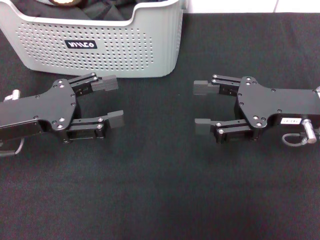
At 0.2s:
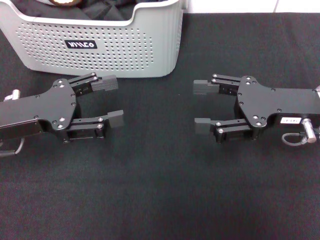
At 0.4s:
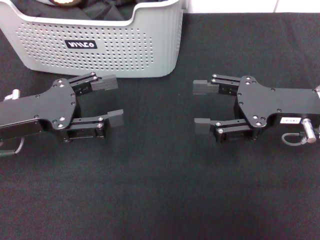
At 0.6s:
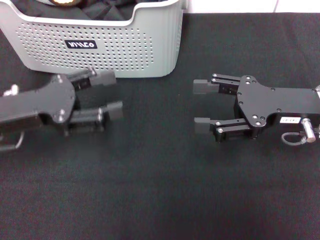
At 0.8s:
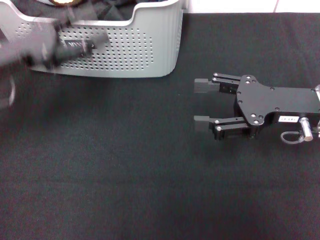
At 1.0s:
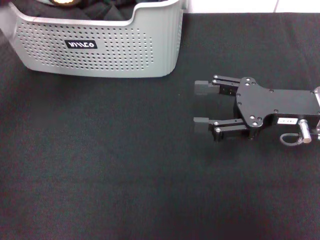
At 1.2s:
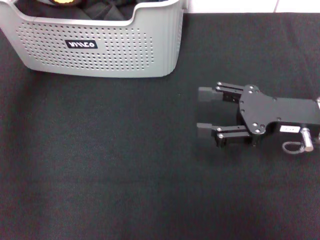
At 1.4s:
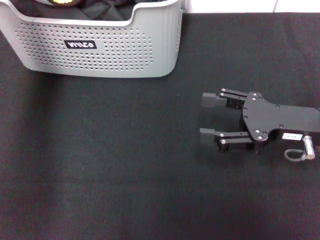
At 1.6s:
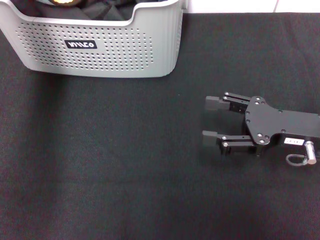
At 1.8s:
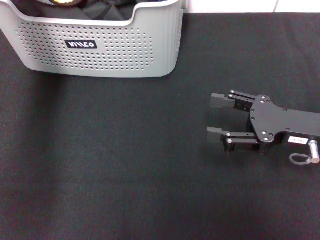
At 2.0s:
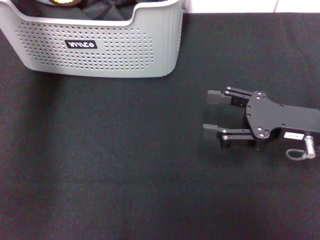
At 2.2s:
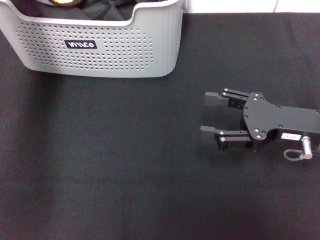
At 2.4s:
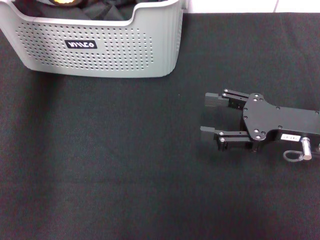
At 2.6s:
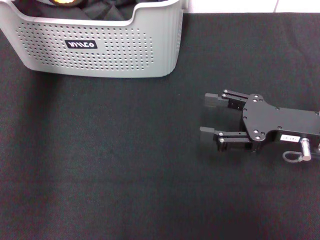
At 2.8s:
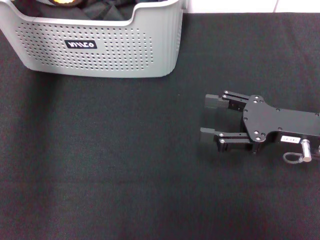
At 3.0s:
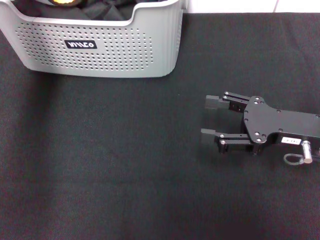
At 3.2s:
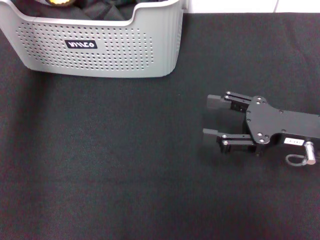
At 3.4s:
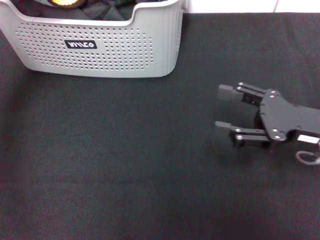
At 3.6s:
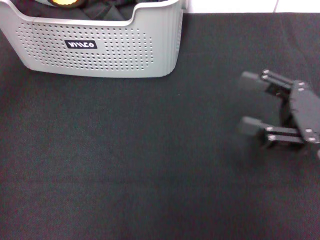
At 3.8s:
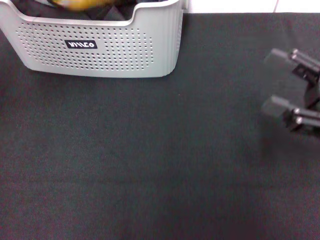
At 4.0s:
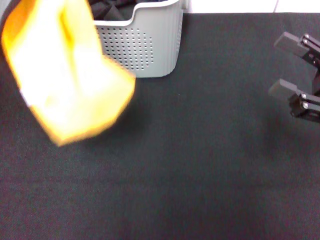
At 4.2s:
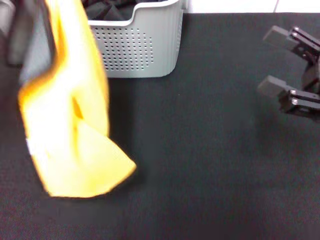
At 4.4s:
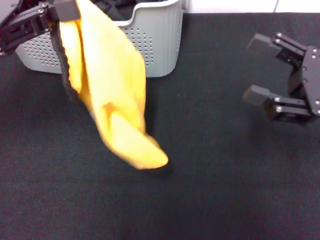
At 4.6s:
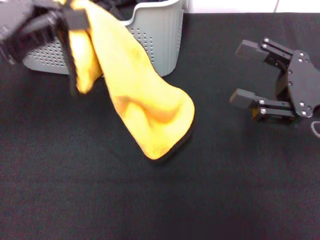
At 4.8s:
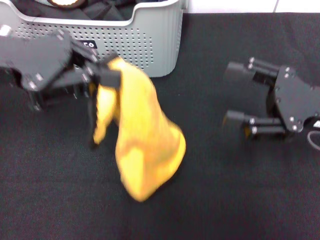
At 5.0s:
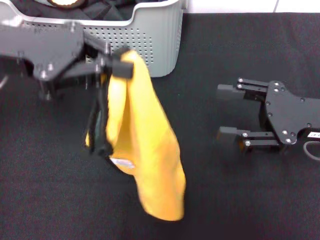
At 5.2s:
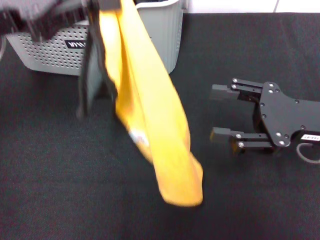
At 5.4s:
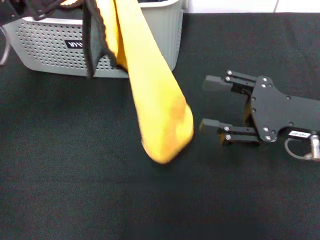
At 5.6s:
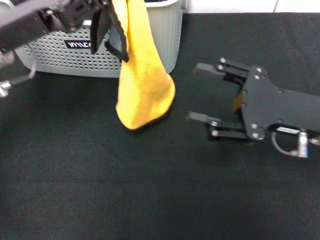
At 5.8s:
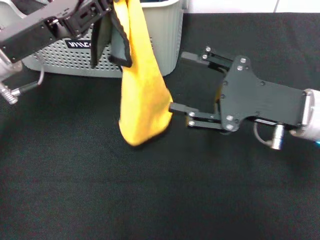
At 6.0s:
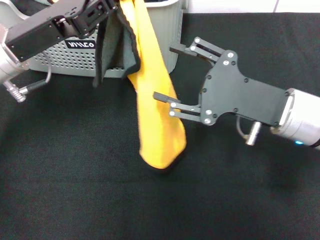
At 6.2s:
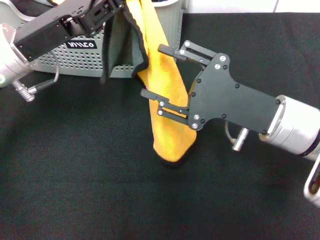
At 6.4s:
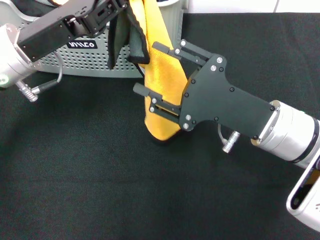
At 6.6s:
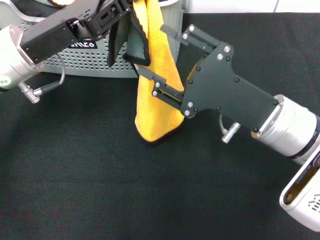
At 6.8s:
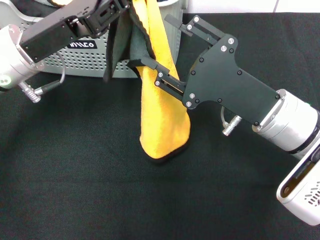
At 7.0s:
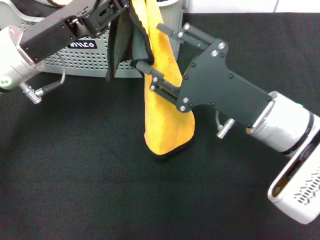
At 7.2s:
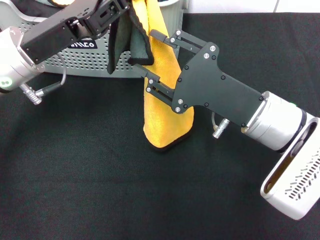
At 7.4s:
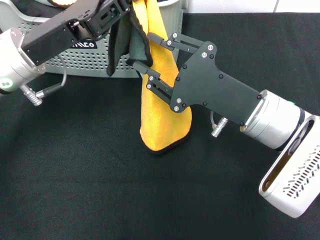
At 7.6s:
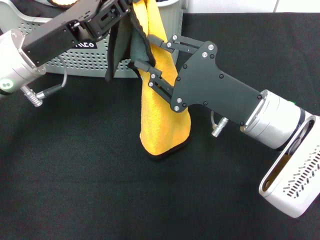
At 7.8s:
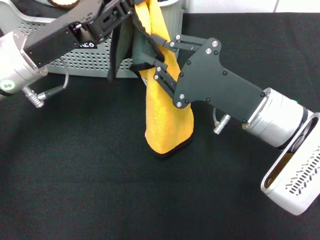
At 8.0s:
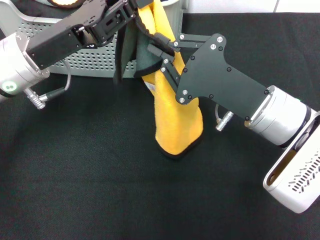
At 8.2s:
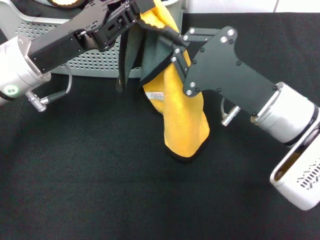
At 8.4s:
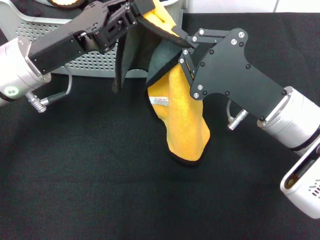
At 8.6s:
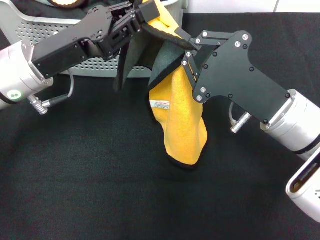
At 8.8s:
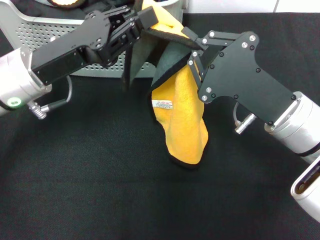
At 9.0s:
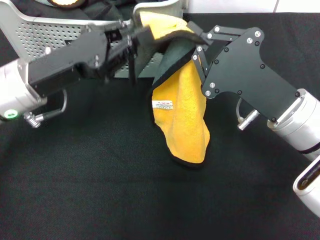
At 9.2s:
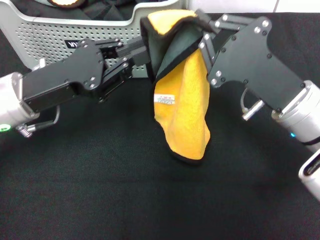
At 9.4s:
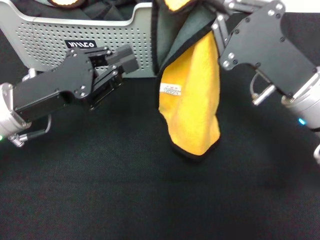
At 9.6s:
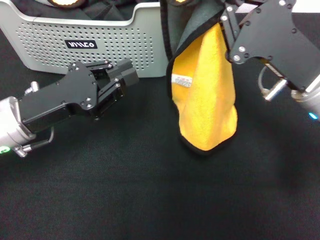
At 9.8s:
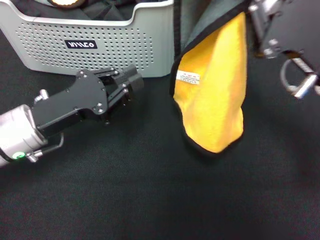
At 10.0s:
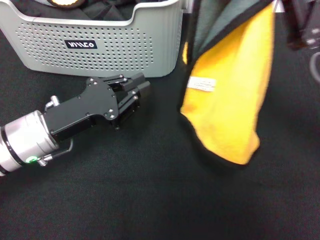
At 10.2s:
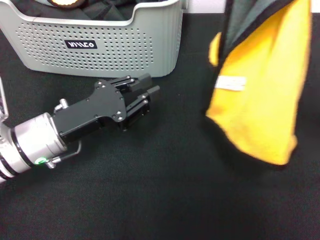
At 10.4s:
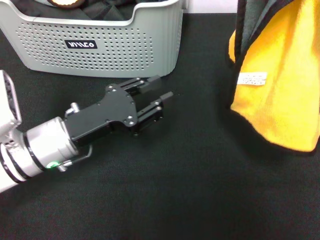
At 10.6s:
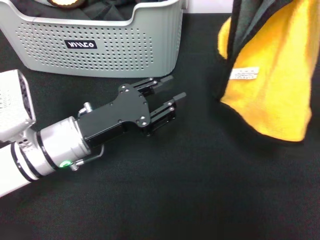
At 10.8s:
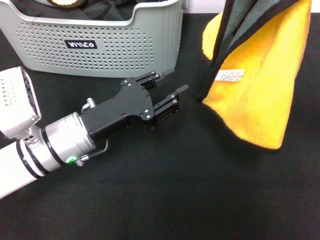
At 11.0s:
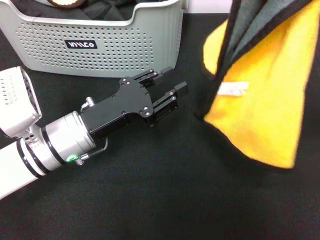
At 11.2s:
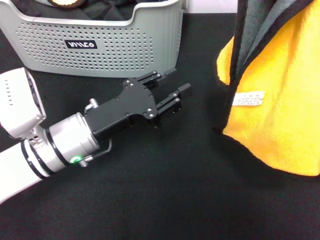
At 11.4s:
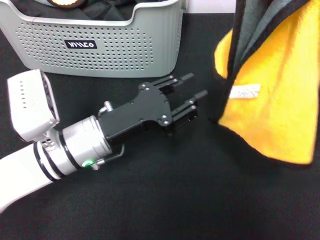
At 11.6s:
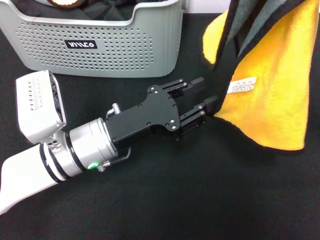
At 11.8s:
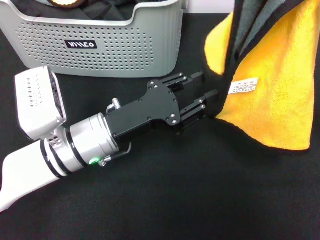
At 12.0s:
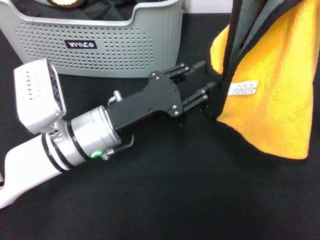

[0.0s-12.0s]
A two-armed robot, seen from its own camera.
Task of the whole recording: pick up the towel from the storage box and lay it flat on the black tablecloth.
Step, 0.0s to 3.4s: Pick up a towel with the left gripper.
Step, 3.6s to 8.0s: Spread the towel flat with the left gripper.
0.0s to 1.6s: The left gripper shifts some 25 cm forward and upward.
1.6s to 3.0s: The left gripper closes its fingers.
3.0s to 4.4s: The right gripper shifts by approximately 5 cm. The left gripper is displaced backward and to the left by approximately 20 cm.
4.4s to 6.0s: The left gripper is displaced downward and to the right by roughly 10 cm, while the right gripper shifts approximately 10 cm to the left.
6.0s to 7.6s: The right gripper closes.
7.6s to 9.0s: The right gripper closes up.
9.0s to 10.4s: The left gripper goes roughly 5 cm downward, while the right gripper heads to the right and upward, covering some 10 cm.
10.4s to 12.0s: The left gripper shifts roughly 5 cm to the right.

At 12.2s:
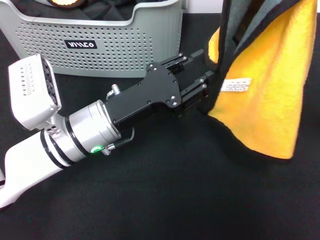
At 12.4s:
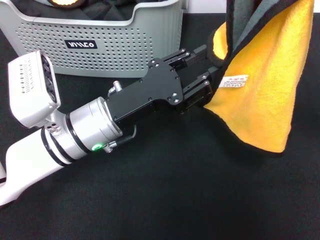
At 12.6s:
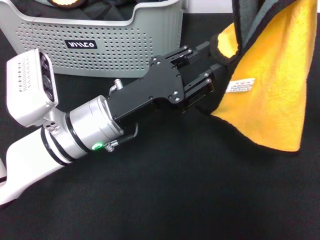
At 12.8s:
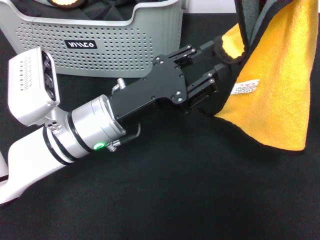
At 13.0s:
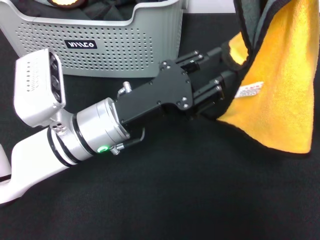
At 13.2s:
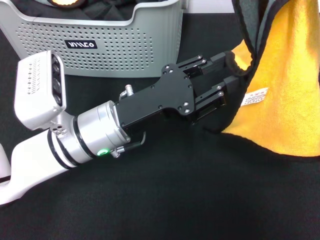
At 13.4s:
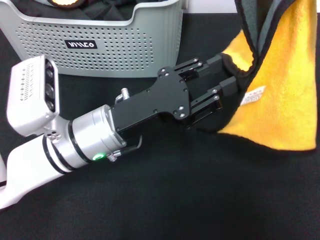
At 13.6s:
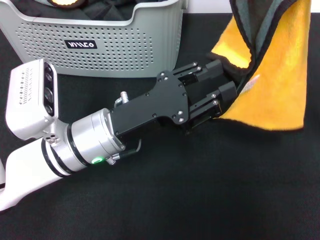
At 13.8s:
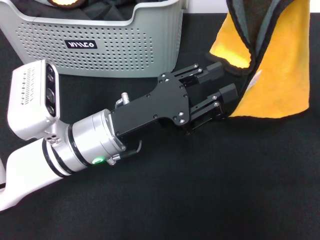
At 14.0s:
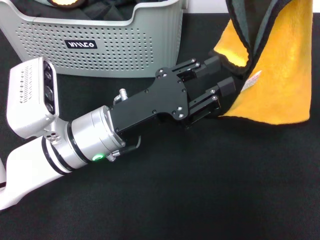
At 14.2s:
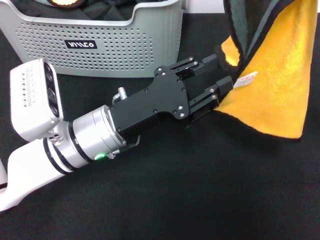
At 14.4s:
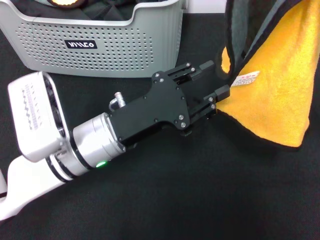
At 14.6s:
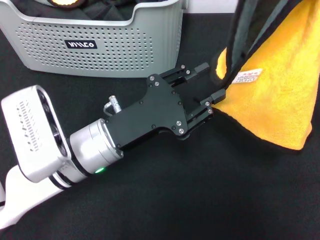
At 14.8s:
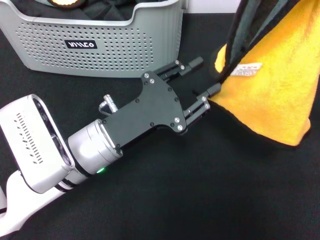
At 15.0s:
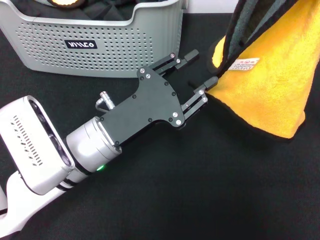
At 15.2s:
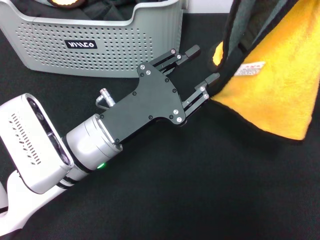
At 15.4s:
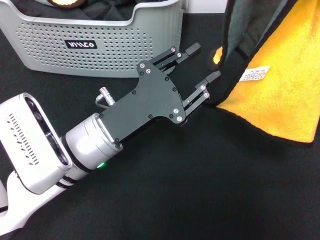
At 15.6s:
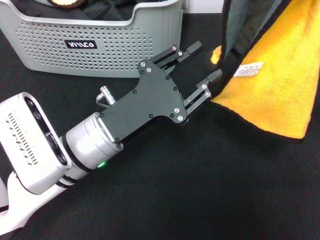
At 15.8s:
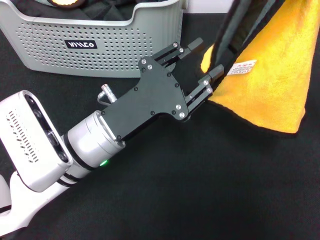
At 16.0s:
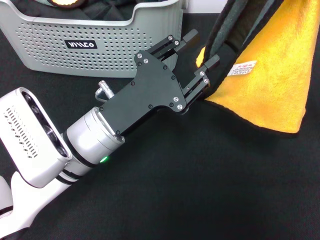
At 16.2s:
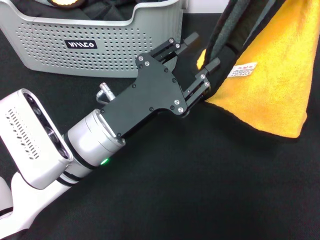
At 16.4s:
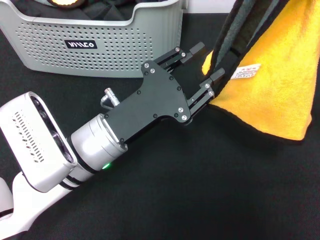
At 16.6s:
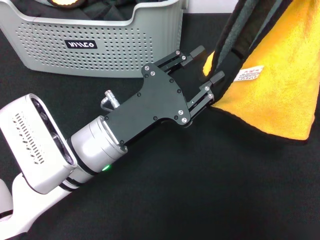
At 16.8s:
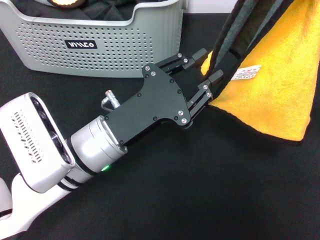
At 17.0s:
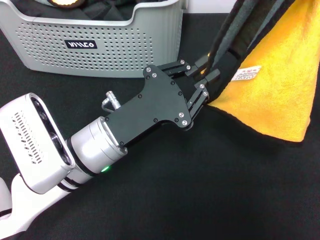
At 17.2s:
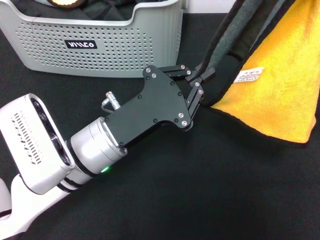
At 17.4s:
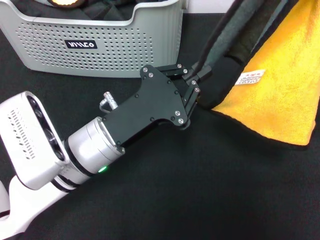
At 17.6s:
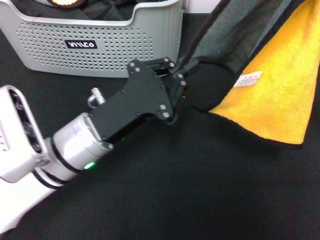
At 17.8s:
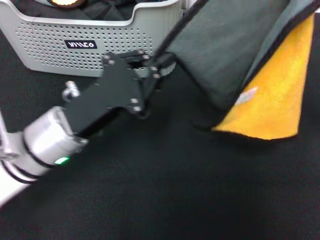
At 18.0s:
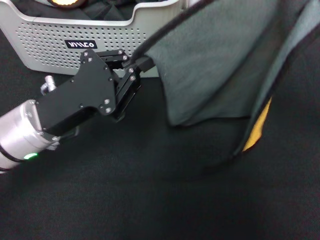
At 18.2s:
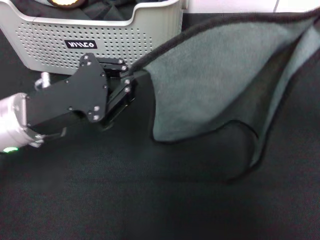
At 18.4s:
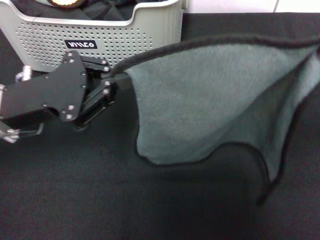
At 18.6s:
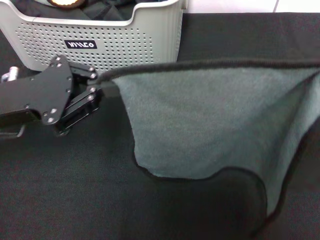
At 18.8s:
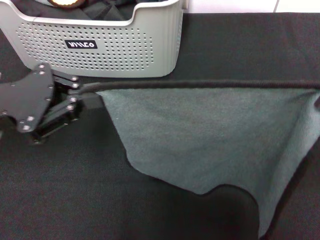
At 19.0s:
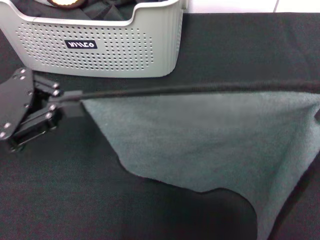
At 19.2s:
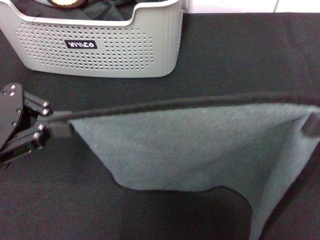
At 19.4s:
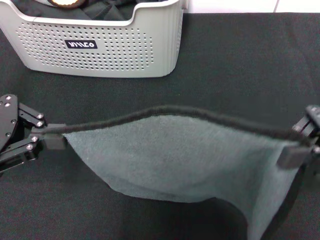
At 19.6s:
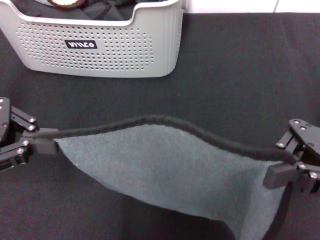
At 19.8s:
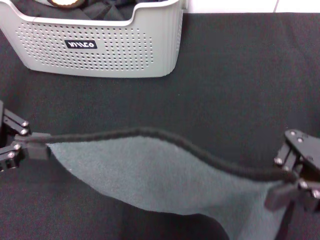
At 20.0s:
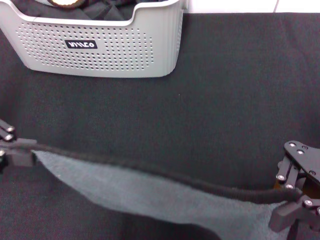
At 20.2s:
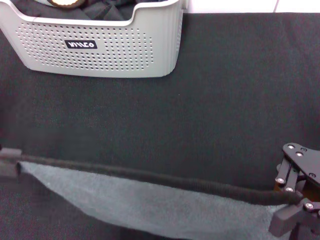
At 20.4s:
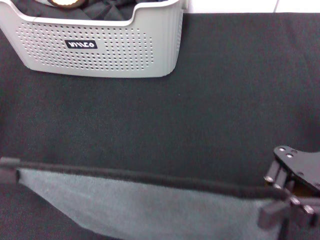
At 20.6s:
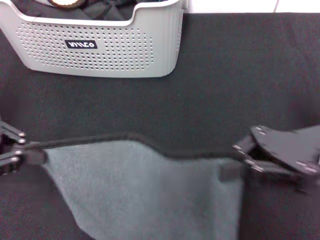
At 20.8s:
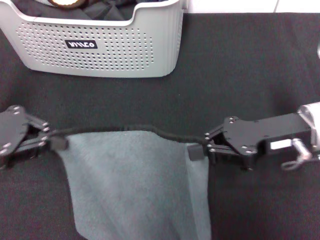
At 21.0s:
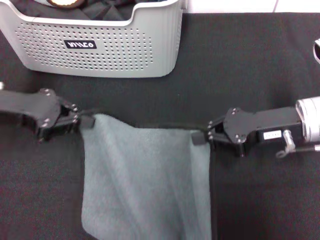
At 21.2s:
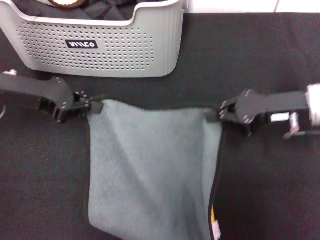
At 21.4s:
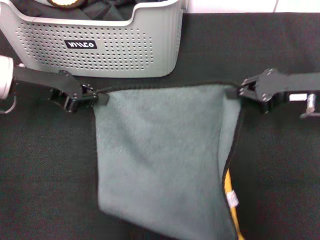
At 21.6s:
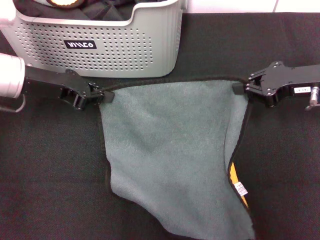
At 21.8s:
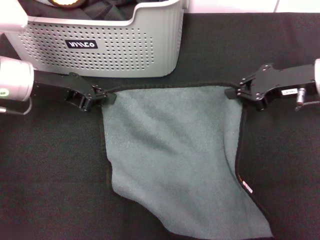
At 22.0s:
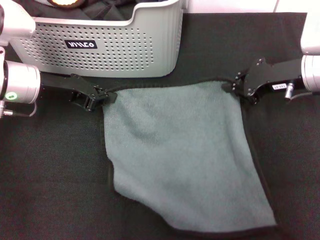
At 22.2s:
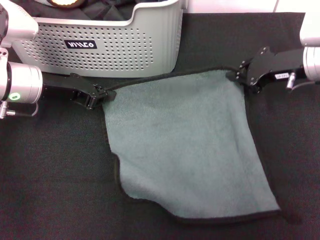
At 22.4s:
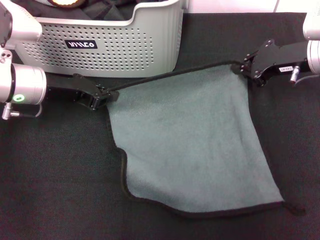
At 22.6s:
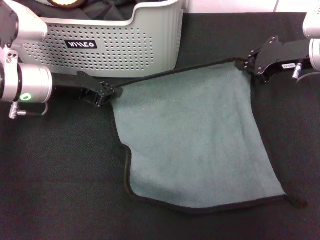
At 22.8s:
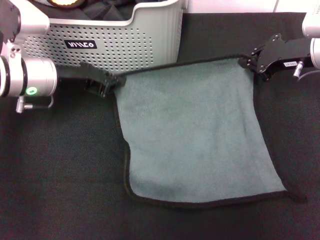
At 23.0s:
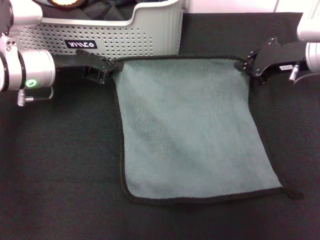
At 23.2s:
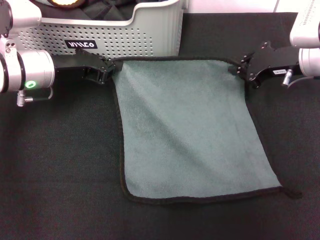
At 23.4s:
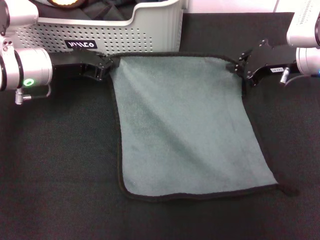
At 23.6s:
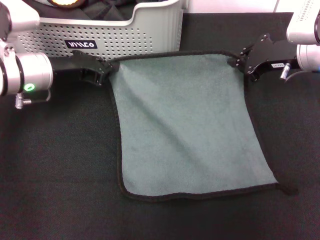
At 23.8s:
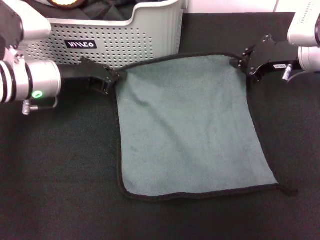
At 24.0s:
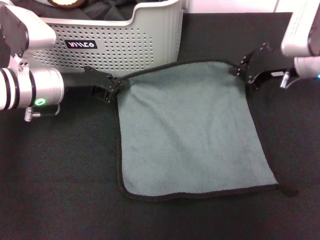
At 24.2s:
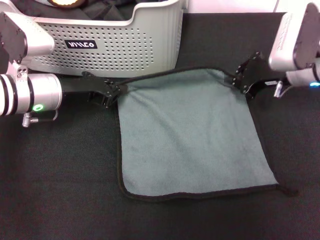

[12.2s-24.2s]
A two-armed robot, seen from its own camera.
Task of the whole recording: pick up the towel from the storage box and lay it flat on the black tablecloth.
15.2s to 16.6s: Neither gripper changes place.
16.6s to 18.2s: The right gripper ends up roughly 5 cm from where it was, while the left gripper shifts about 10 cm to the left, and closes.
18.2s to 19.8s: The left gripper heads to the left and upward, covering about 15 cm. Meanwhile the right gripper travels to the left by roughly 5 cm.
19.8s to 21.2s: The grippers both shift forward by approximately 10 cm.
21.2s to 22.6s: The left gripper moves roughly 5 cm, while the right gripper shifts approximately 10 cm forward.
22.6s to 24.2s: The grippers make only small movements.
